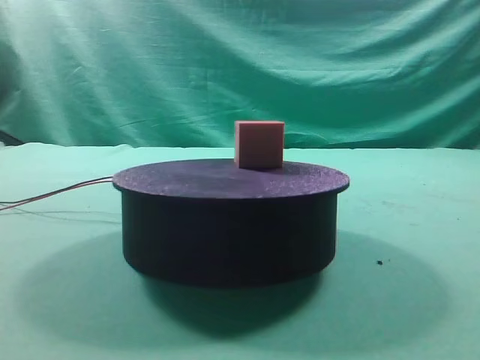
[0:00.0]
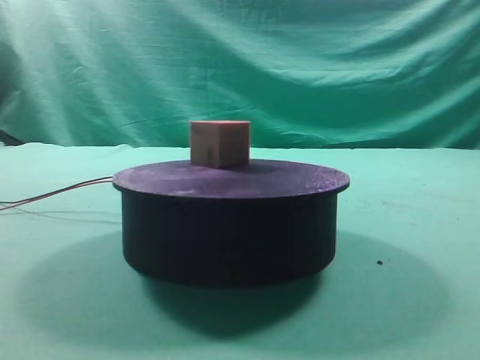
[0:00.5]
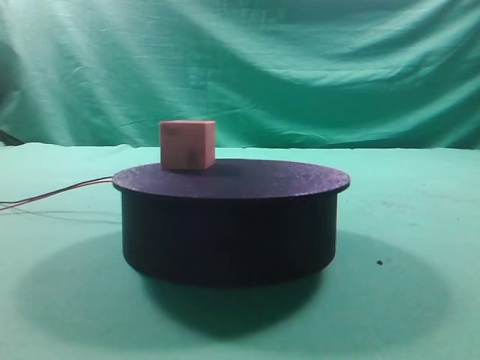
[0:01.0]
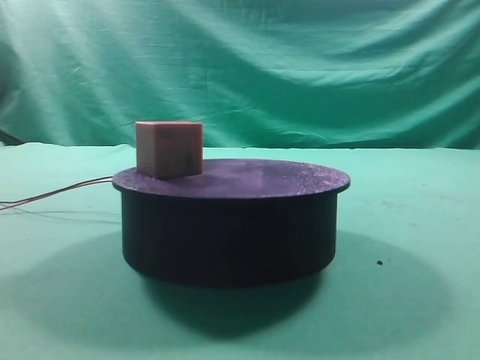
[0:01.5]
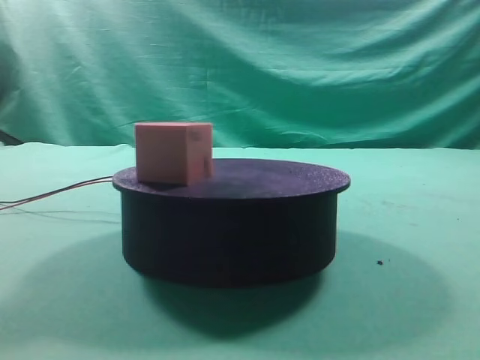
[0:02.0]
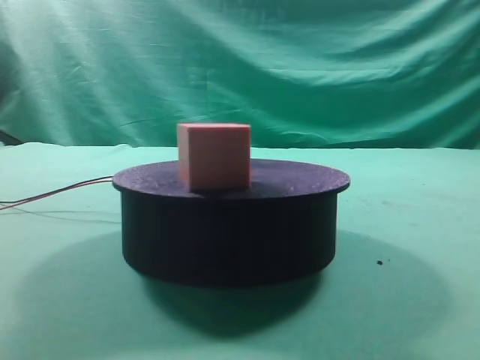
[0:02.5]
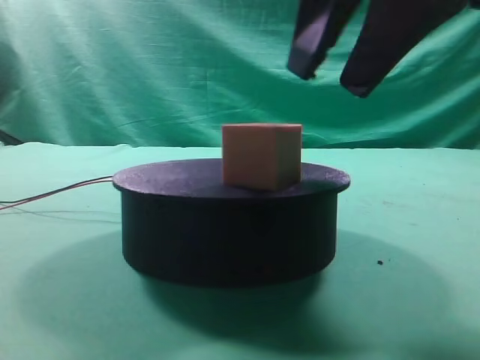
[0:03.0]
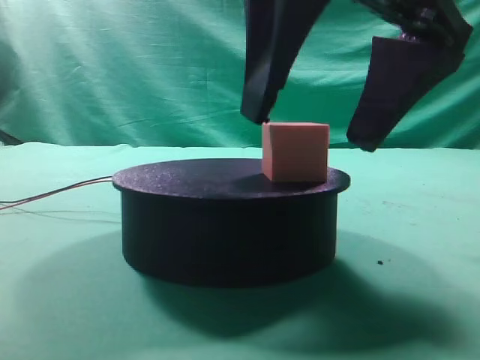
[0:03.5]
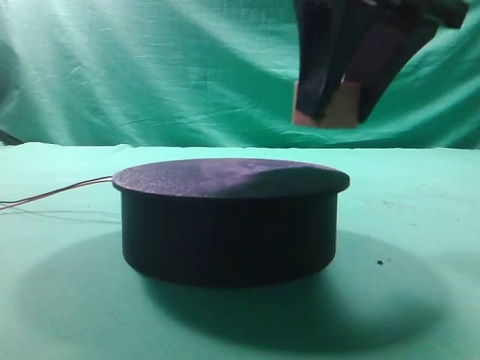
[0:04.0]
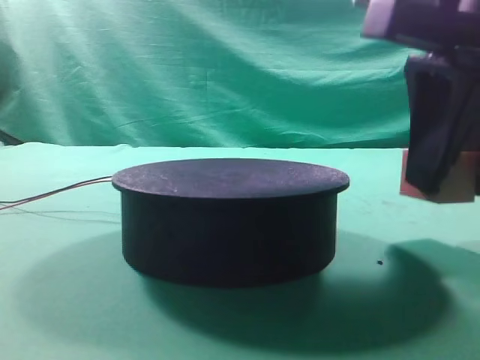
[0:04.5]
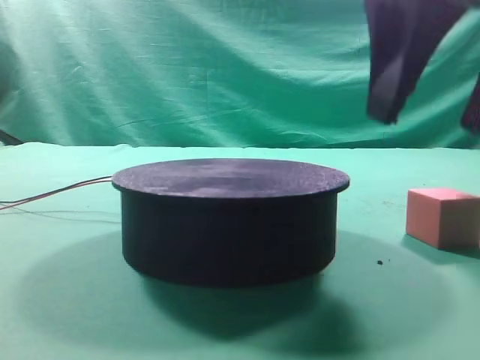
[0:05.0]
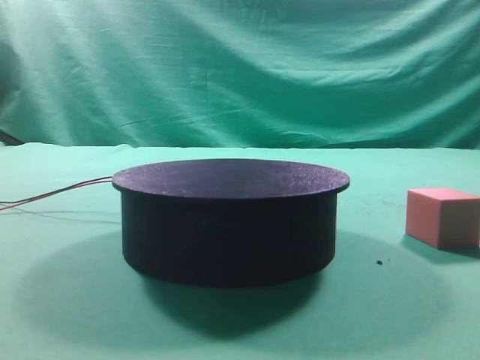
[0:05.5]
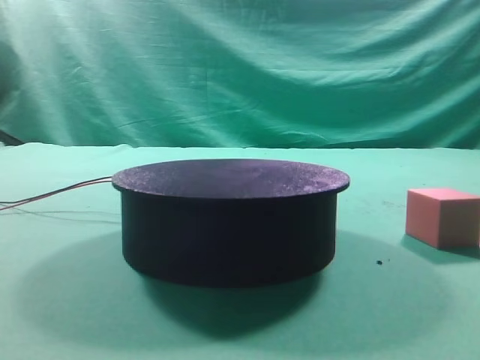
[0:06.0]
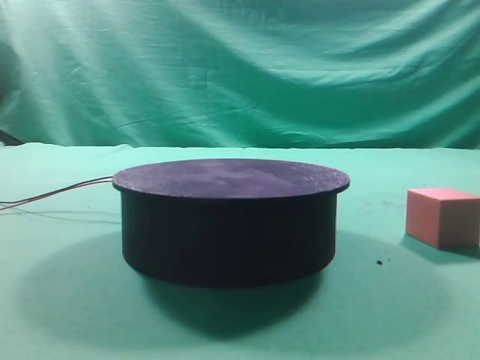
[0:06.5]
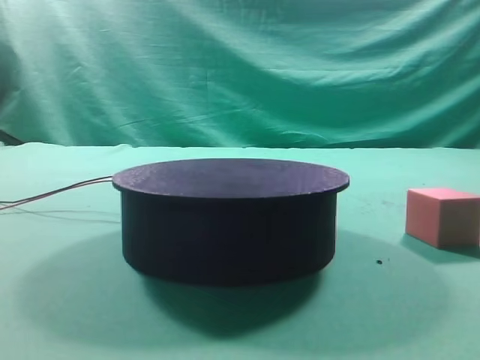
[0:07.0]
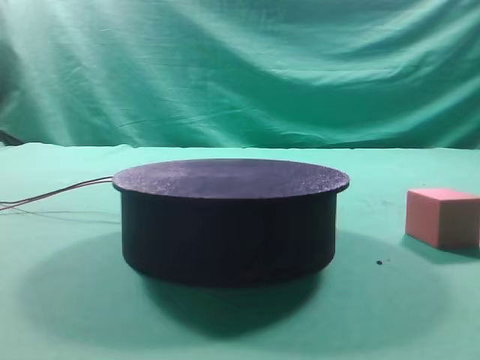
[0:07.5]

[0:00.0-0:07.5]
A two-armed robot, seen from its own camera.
Task of the whole recording: grasp the rotating cube-shaped block on the turntable and place it on the table.
Step, 0:00.0 to 0:04.0: Grasp the rotating cube-shaped block on the turntable.
Step, 0:04.5 to 0:05.0: Place the cube on the desk.
